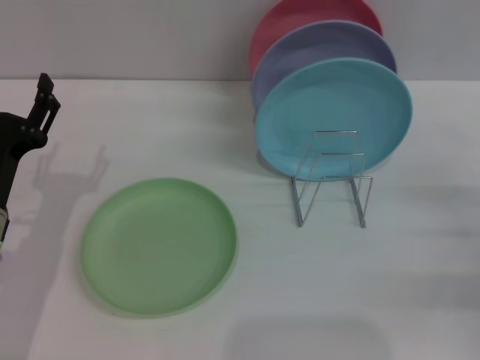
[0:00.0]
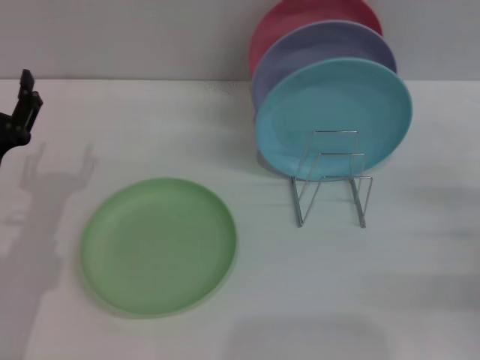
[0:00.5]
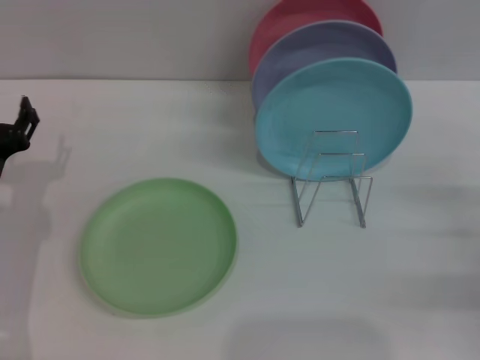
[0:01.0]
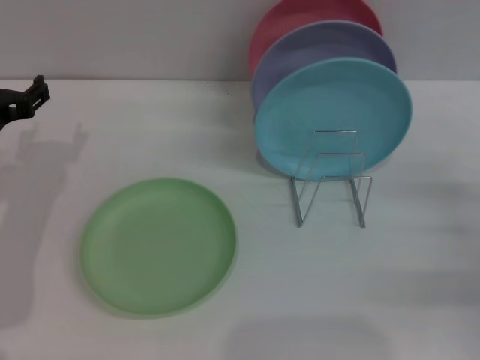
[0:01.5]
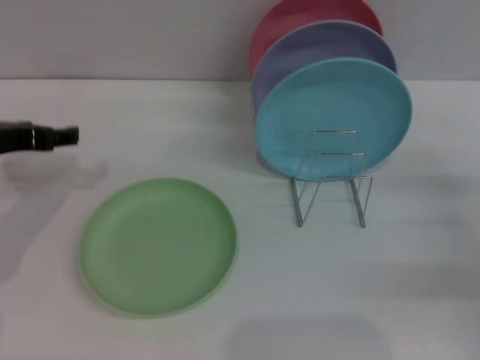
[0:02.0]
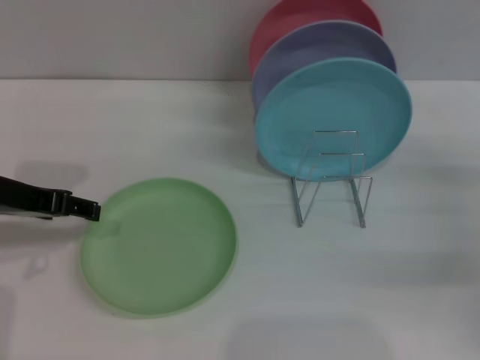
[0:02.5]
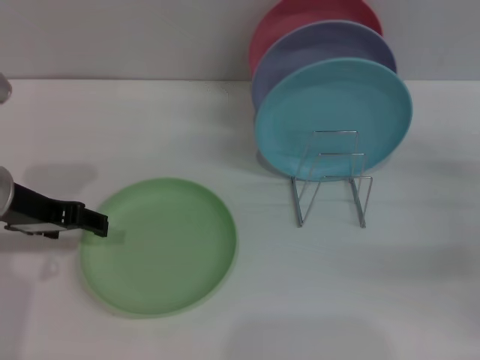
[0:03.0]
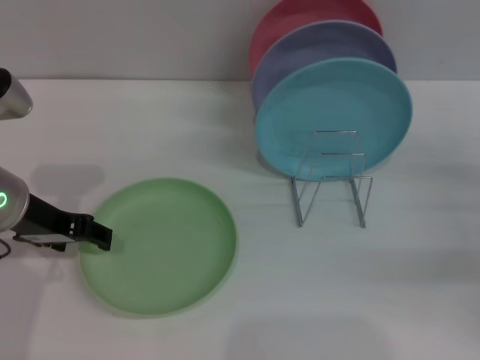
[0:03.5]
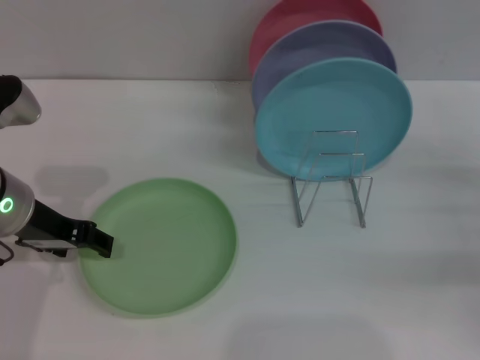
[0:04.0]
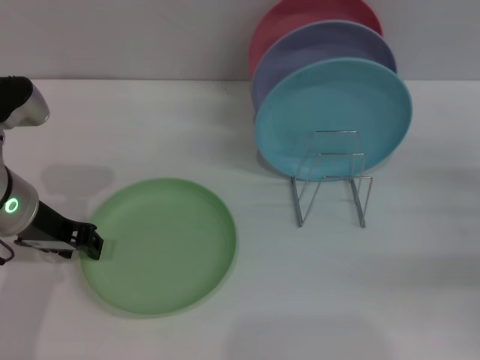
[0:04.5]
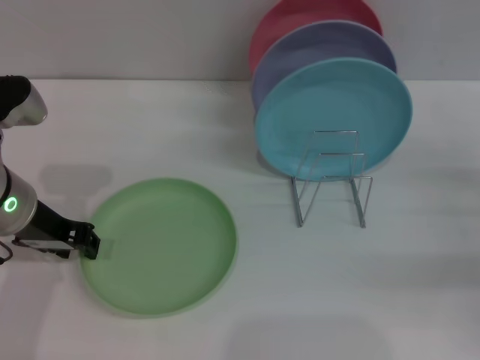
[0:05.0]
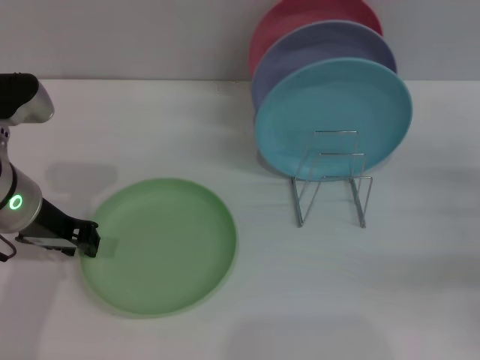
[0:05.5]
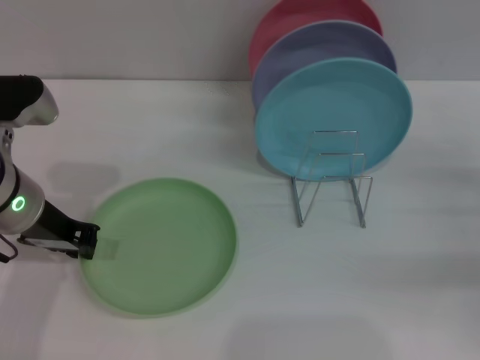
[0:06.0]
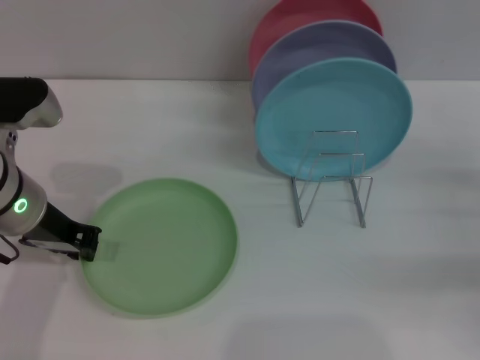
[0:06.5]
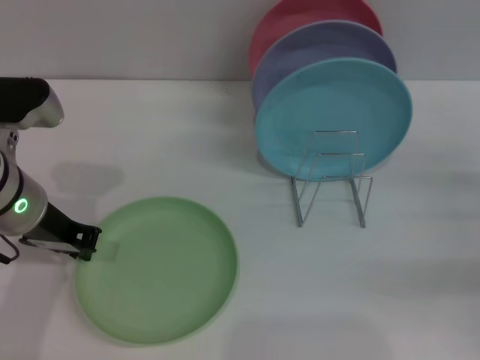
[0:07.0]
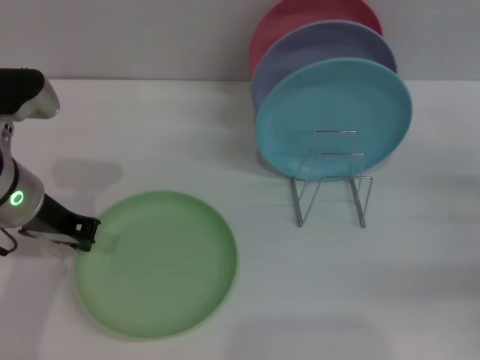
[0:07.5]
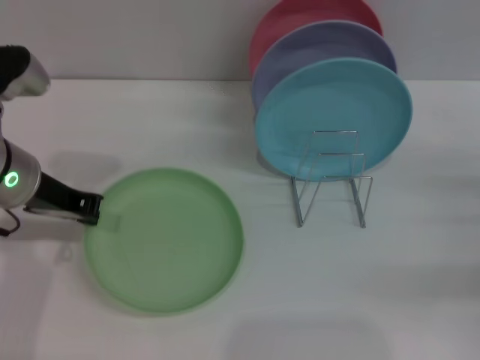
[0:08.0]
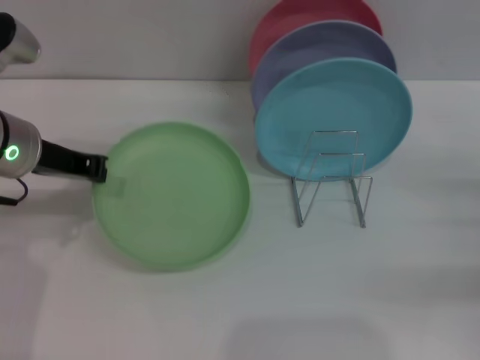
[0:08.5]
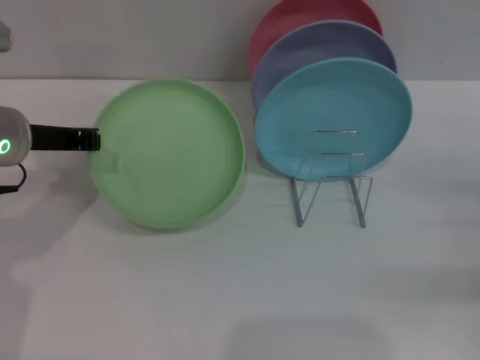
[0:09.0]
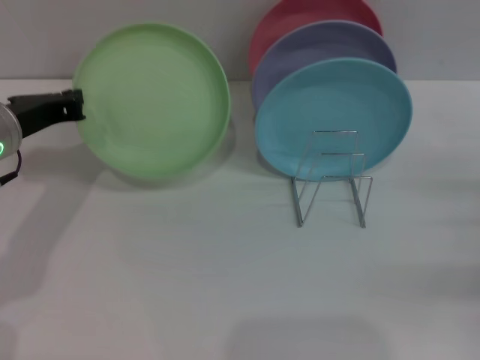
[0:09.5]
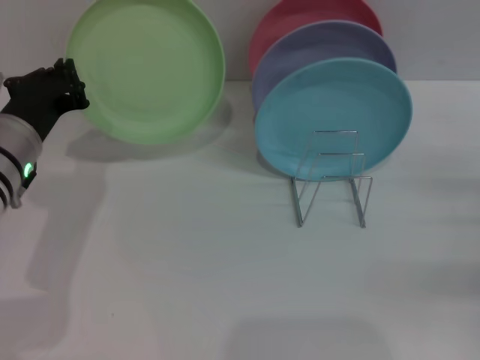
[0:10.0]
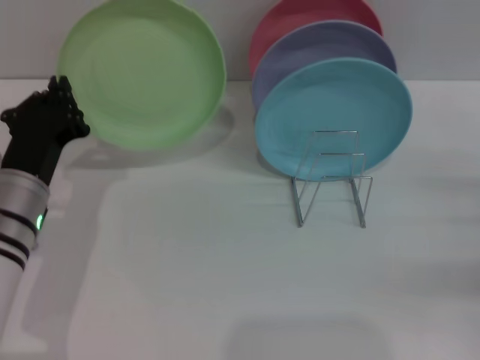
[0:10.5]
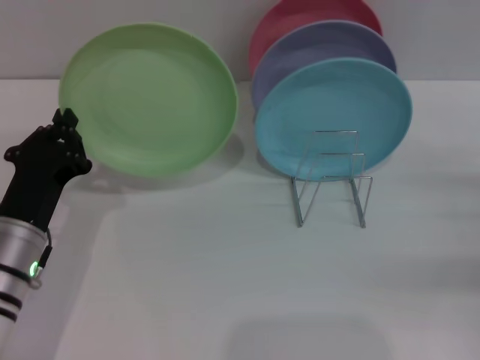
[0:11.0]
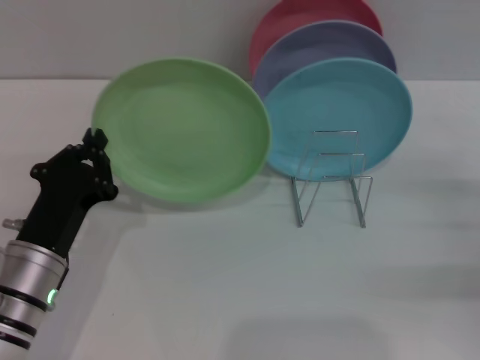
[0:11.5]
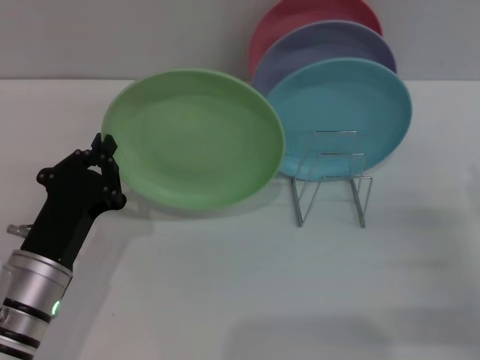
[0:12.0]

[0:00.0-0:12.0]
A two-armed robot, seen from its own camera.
Task of the whole recording: Grip the plate with one hand, pass it to the other, then set it on the shelf.
Step, 0:00.0 to 0:09.5: Pick up the plate with the left gripper.
0:00.0 to 0:02.0: The left gripper moves upward and forward, approximately 15 cm.
0:02.0 to 0:04.0: The left gripper shifts by about 5 cm.
0:04.0 to 0:06.0: The left gripper closes its fingers.
0:06.0 to 0:08.0: The grippers move only a little.
0:10.0 to 0:12.0: The right gripper goes approximately 5 cm to the left; the left gripper moves backward and downward, some 15 cm.

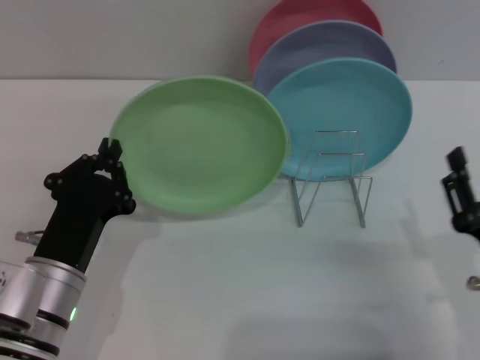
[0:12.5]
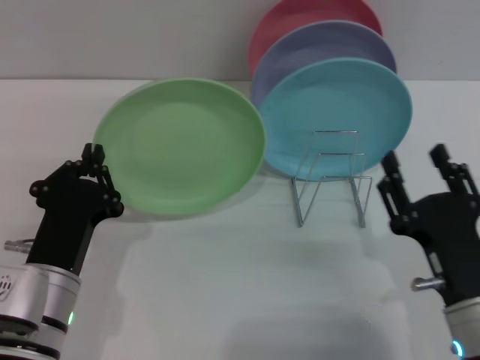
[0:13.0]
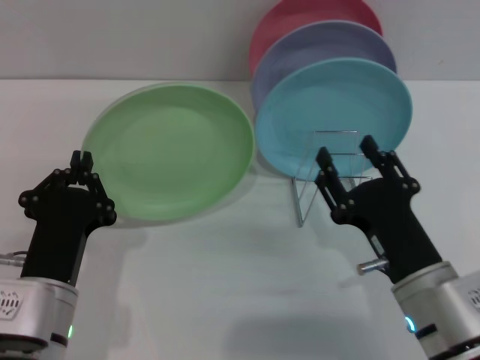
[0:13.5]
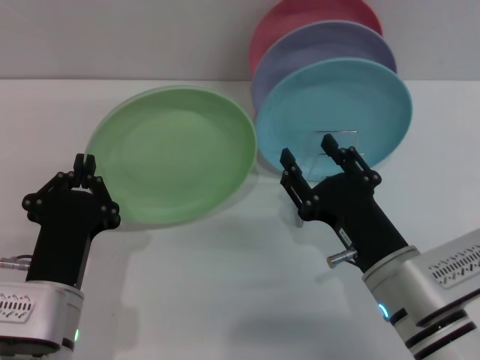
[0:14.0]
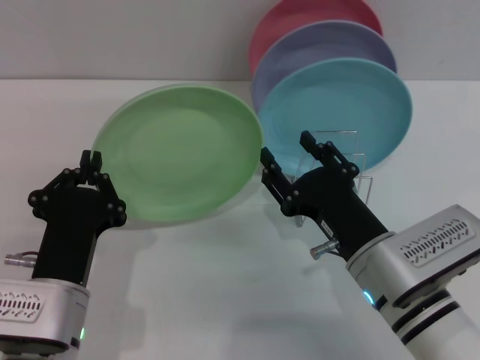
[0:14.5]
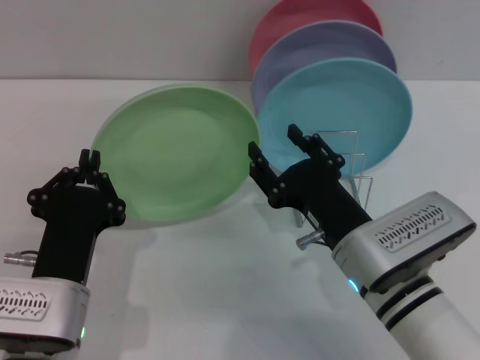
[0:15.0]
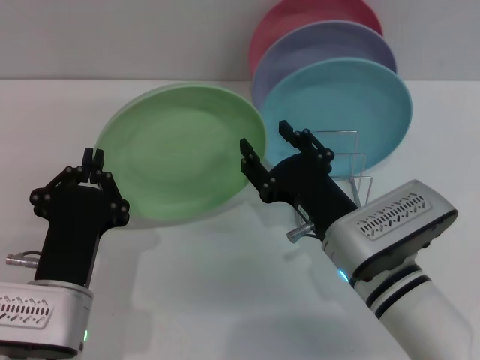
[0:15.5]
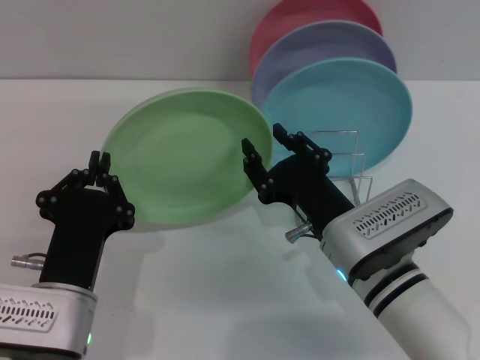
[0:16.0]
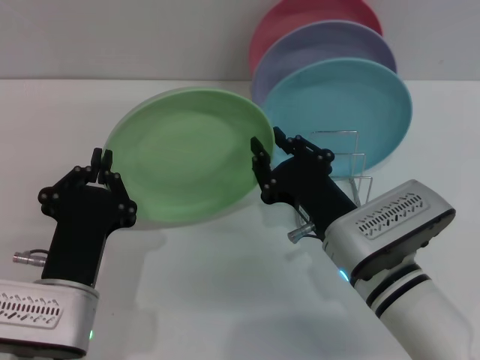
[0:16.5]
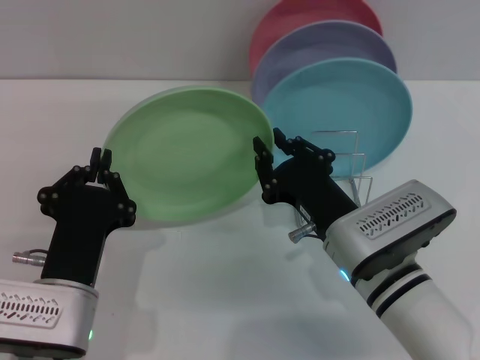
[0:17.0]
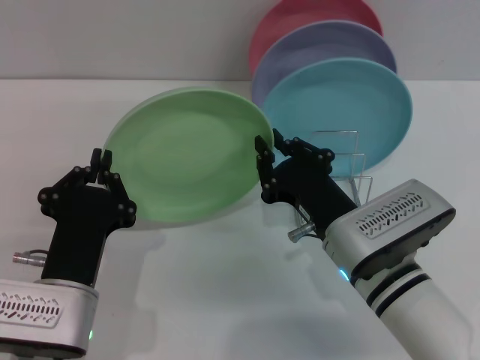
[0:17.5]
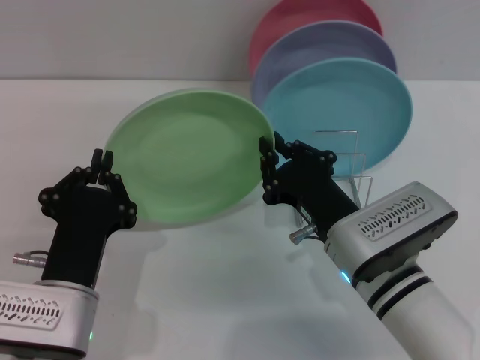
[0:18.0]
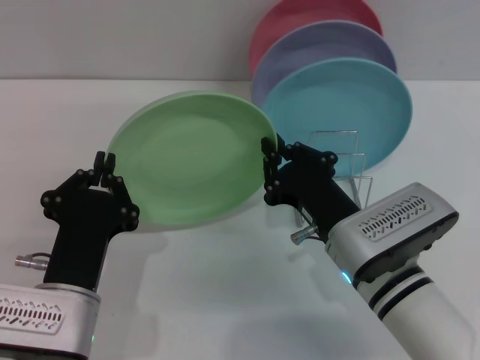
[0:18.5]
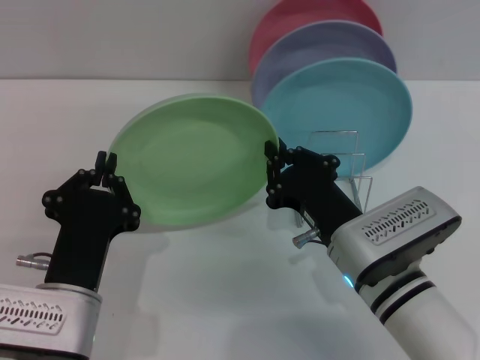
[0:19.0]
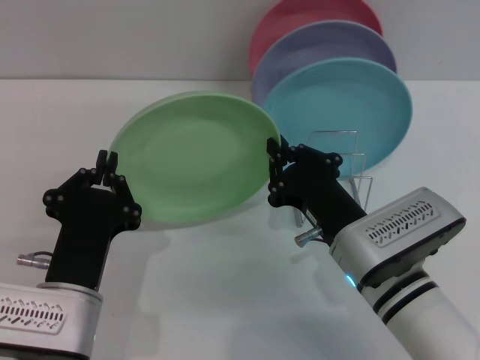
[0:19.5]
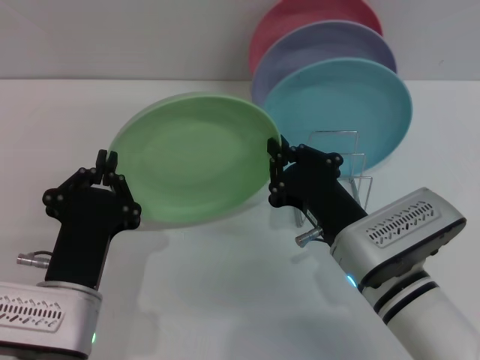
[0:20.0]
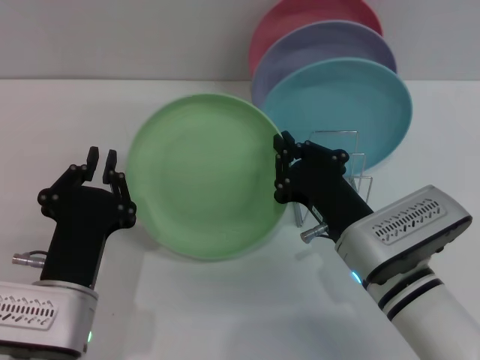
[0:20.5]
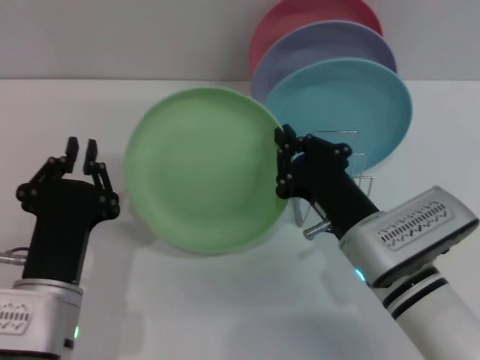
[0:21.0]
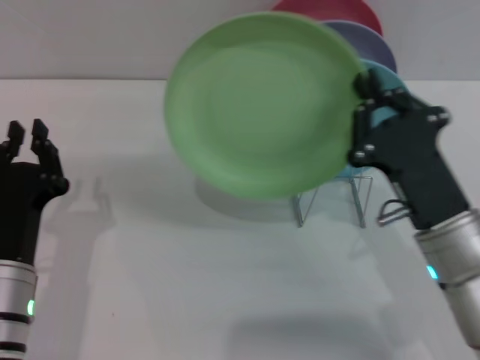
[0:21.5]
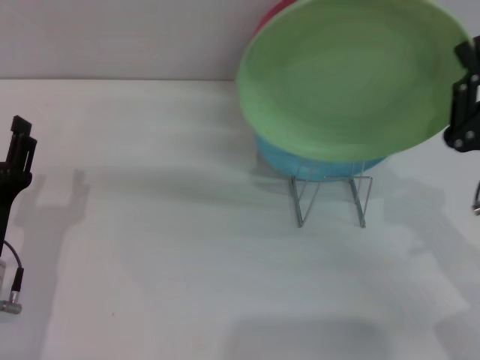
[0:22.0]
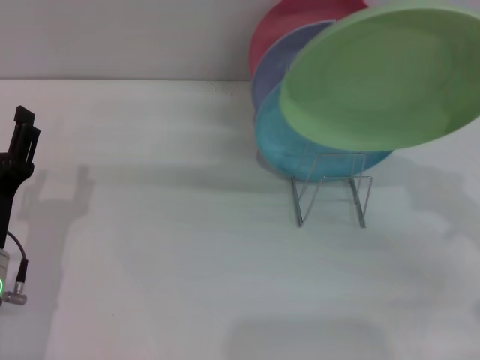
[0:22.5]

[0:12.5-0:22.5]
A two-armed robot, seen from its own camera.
Task of the whole recording: Grip the plate with one hand, pass it to the other, then set it on the shelf.
Step, 0:12.5 to 0:21.0: Pass the plate from the left gripper to the right gripper.
0:12.5 to 0:14.5: The right gripper moves to the left and forward, approximately 10 cm.
0:14.5 to 0:16.5: The grippers make only small movements.
0:16.5 to 0:18.5: The right gripper closes its fingers.
0:18.5 to 0:20.5: Neither gripper changes place.
0:20.5 to 0:22.5: The right gripper goes approximately 20 cm to the right; the left gripper goes about 10 cm to the left, and opens its fingers.

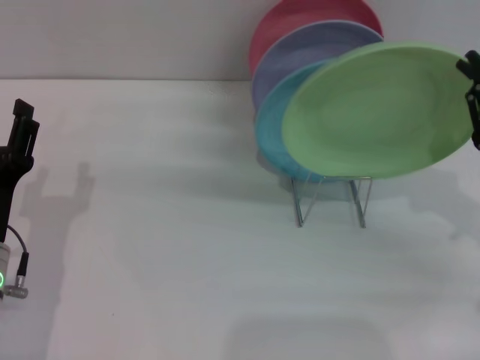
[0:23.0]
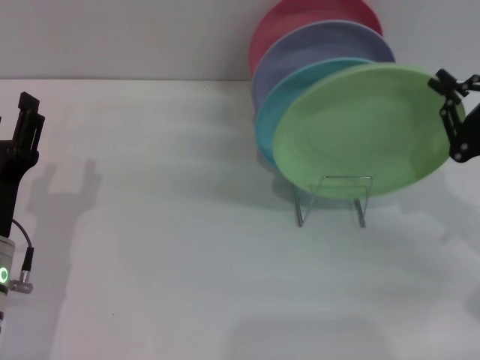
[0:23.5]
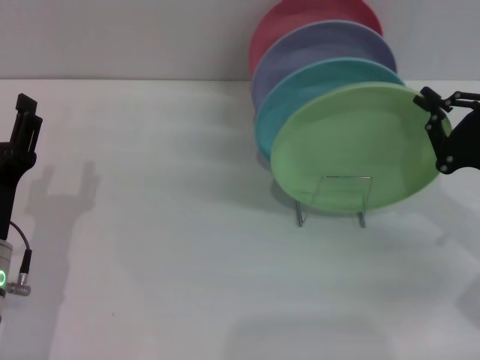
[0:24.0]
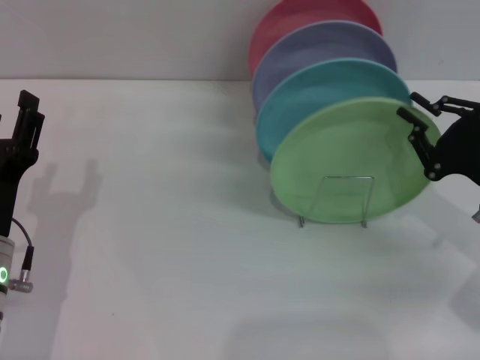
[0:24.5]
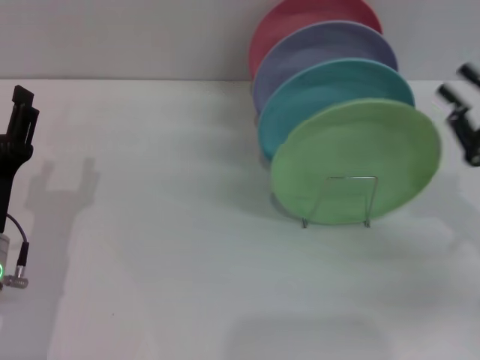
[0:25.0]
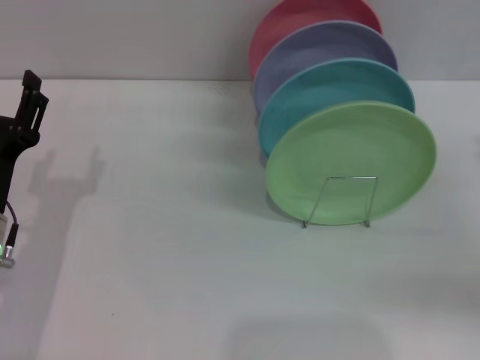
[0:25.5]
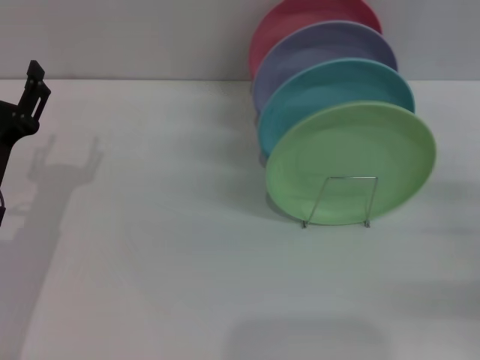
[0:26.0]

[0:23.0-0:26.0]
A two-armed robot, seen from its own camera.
Task of the whole recording: Grip the plate with one hand, pass it to the other, then set it on the shelf.
0:23.0 to 0:24.5: The grippers move only a little.
0:24.5 to 0:26.0: The left gripper shifts by roughly 5 cm. Meanwhile the right gripper heads to the right, covering approximately 5 cm, and opens.
